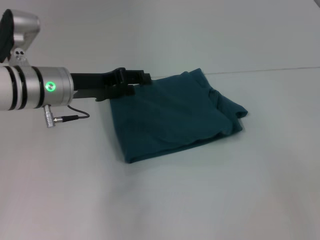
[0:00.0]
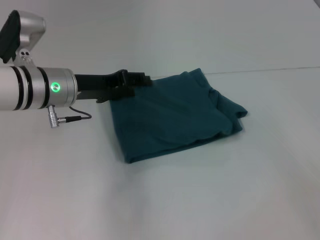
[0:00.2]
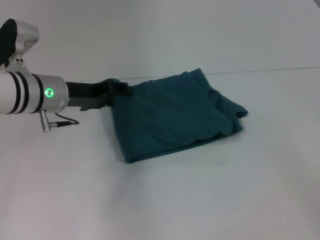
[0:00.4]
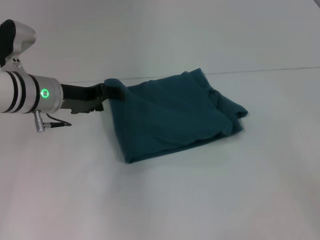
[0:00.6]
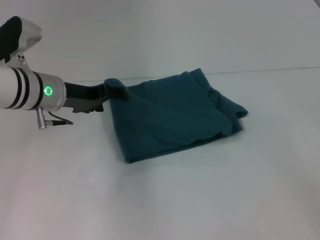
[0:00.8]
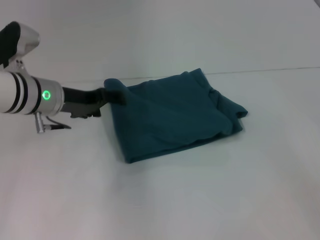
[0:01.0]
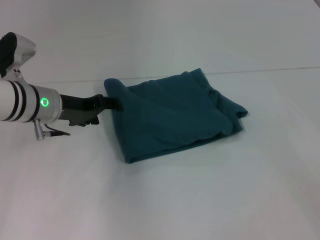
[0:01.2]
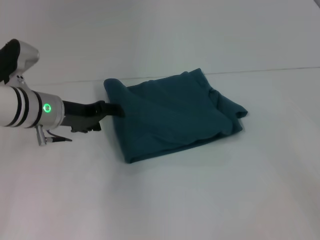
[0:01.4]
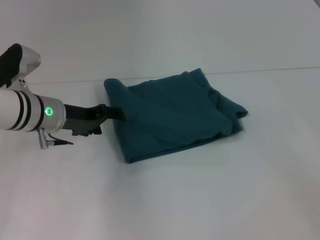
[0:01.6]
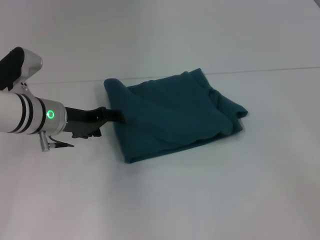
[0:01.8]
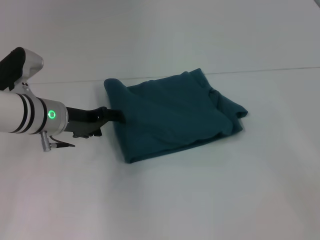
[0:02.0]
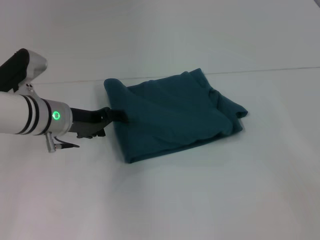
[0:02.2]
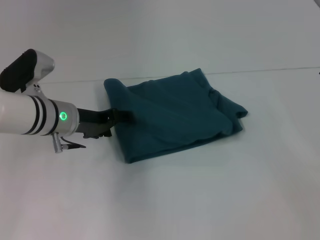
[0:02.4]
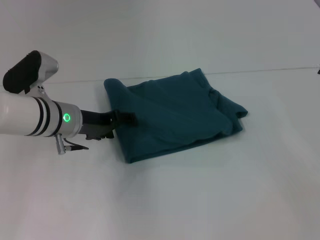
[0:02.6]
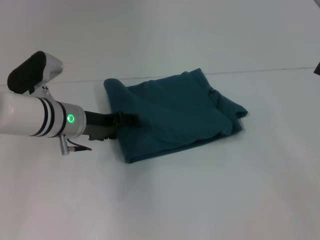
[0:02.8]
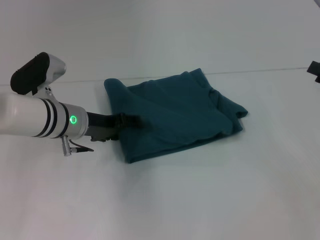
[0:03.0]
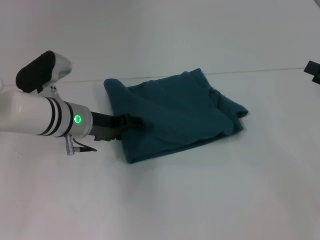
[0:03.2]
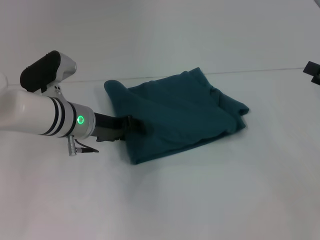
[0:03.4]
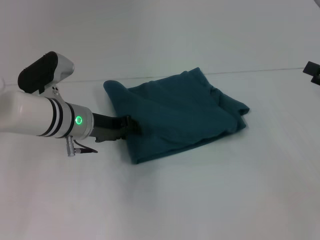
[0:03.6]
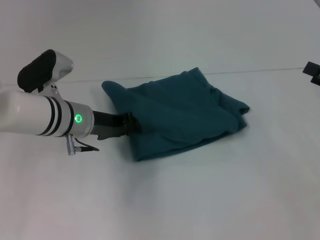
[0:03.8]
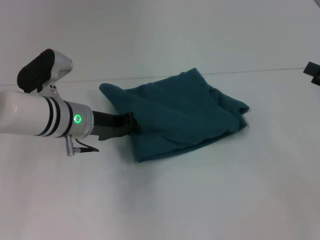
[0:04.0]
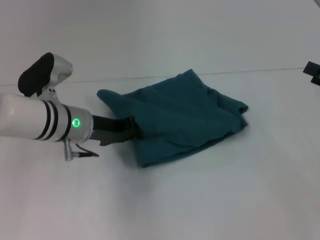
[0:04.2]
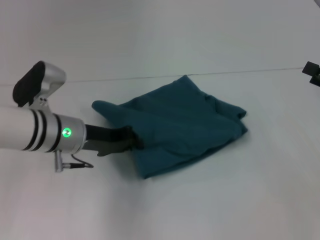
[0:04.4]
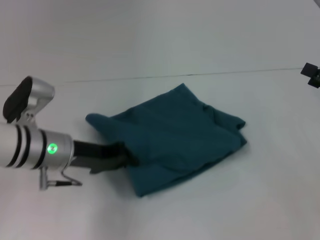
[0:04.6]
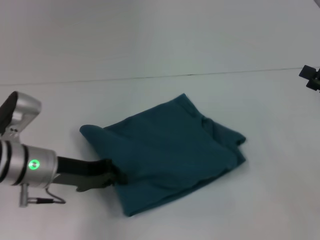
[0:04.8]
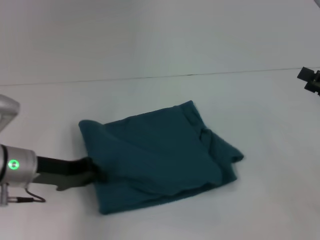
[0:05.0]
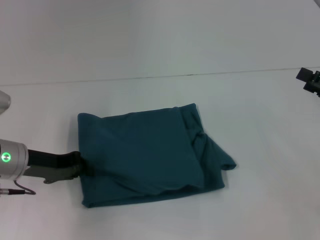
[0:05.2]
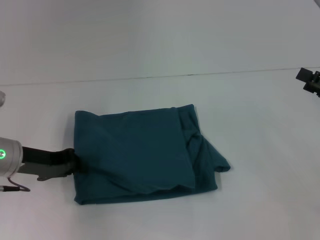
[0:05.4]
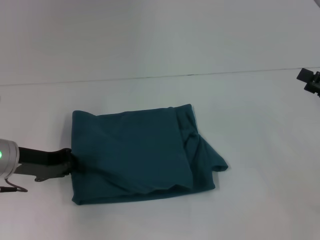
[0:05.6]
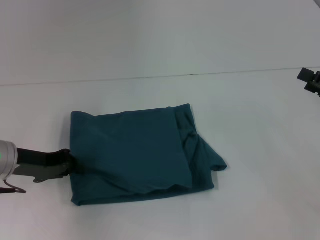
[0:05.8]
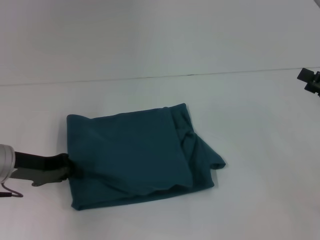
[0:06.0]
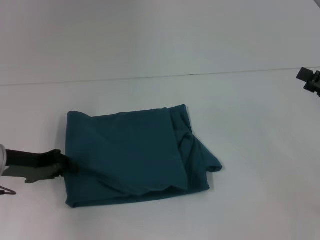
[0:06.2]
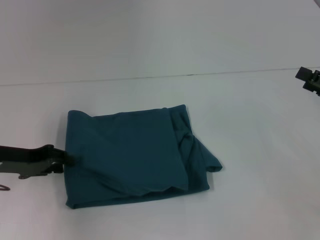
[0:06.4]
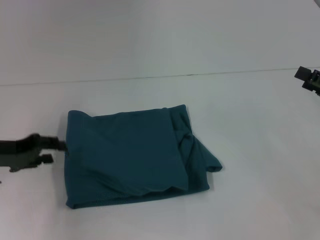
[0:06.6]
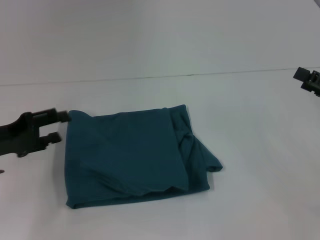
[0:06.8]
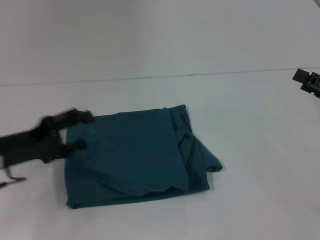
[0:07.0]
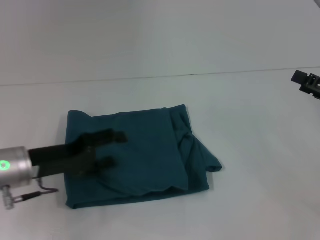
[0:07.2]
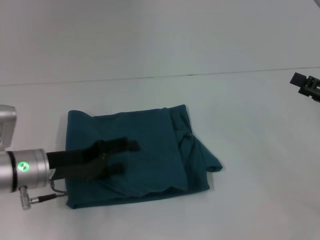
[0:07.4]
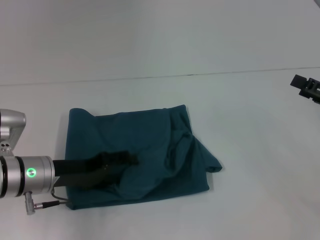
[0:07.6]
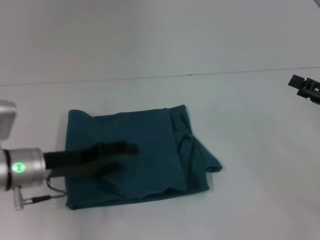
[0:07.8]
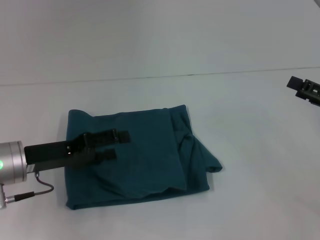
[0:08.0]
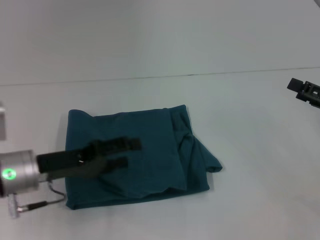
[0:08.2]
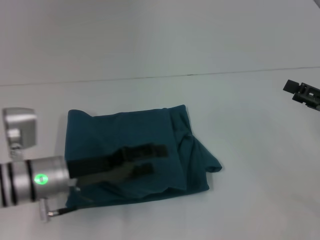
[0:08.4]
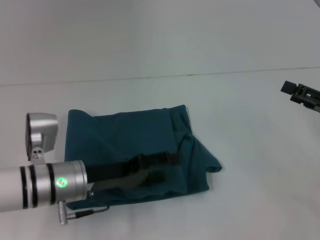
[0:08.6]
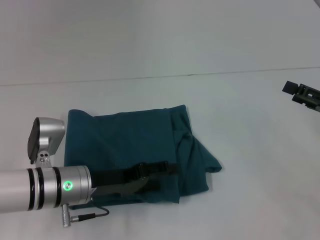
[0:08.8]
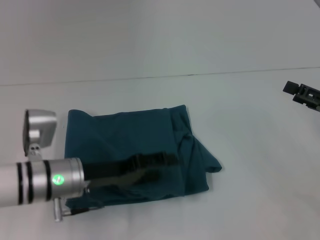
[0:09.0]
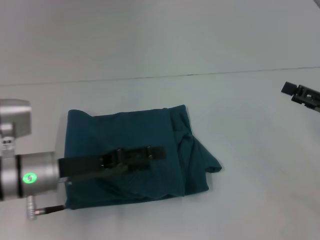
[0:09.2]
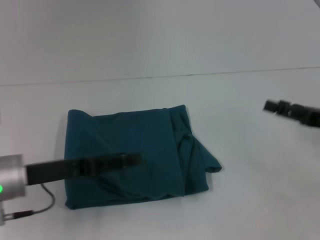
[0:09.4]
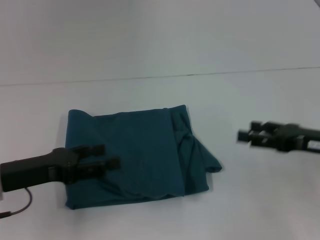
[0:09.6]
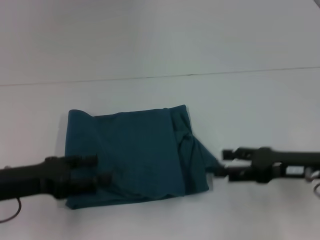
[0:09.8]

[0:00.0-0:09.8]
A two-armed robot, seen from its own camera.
1.4 to 2.8 s: There are only small adjustments of the grippers.
2.8 to 4.2 s: The left gripper closes up.
4.2 to 5.6 s: The left gripper shifts about 10 cm to the left.
5.6 to 7.0 s: The left gripper opens.
7.0 to 8.4 s: The left gripper shifts about 10 cm to the right.
8.4 to 9.8 s: Both grippers move to the left, some 10 cm.

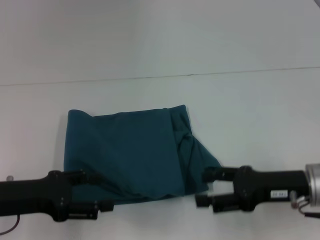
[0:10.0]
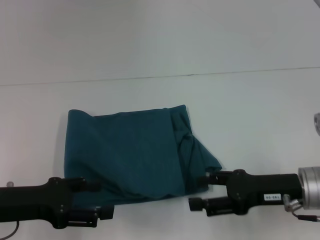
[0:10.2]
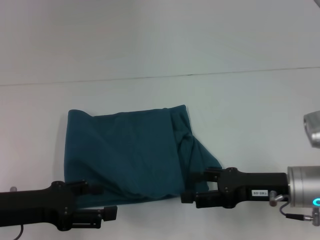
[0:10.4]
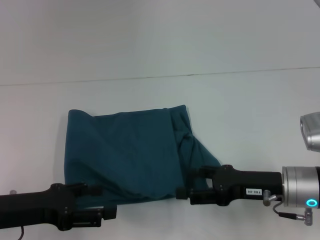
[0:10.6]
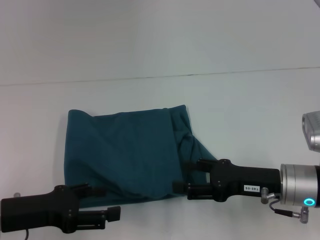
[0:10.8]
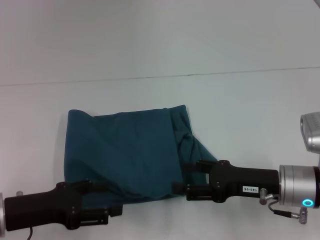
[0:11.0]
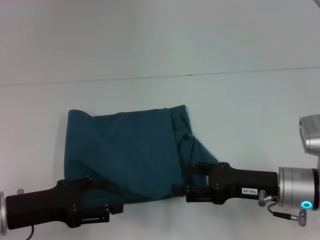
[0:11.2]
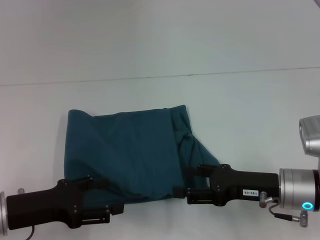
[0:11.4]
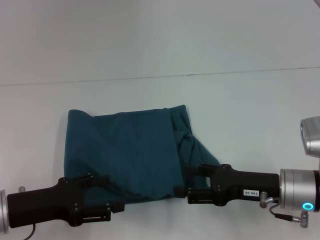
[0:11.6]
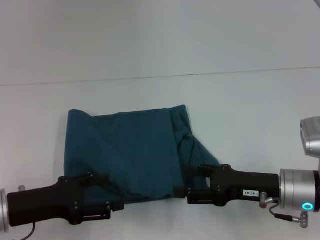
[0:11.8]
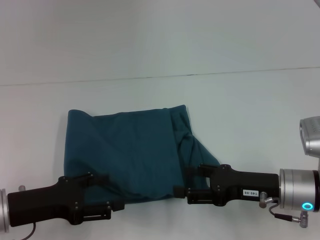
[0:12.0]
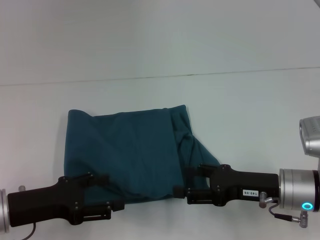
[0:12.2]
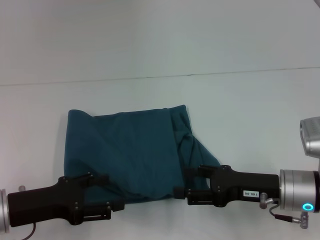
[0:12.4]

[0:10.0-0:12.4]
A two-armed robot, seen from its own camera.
10.0 to 11.2 s: There are only small adjustments of the grippers.
11.2 to 12.4 s: Both grippers stay about where they are.

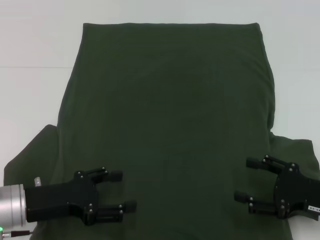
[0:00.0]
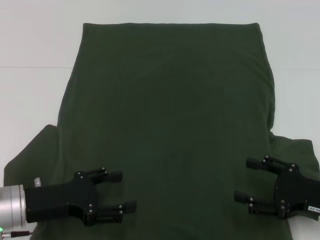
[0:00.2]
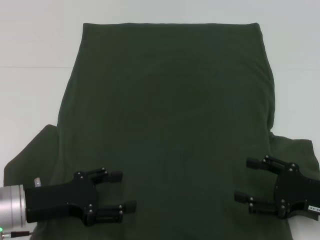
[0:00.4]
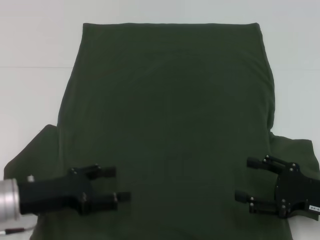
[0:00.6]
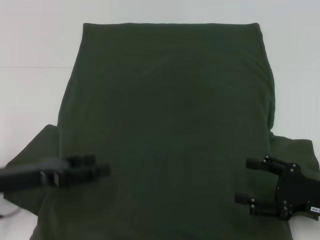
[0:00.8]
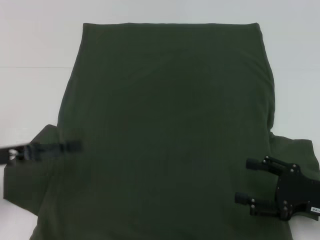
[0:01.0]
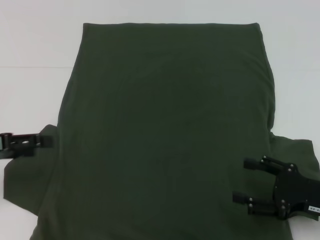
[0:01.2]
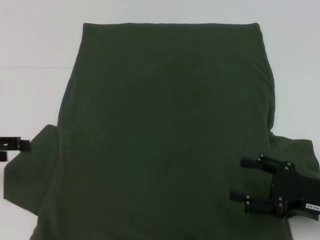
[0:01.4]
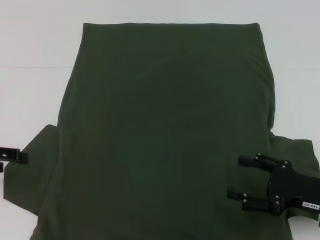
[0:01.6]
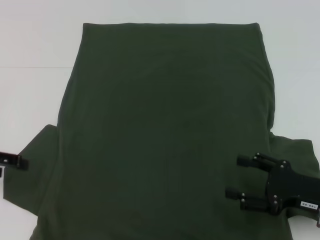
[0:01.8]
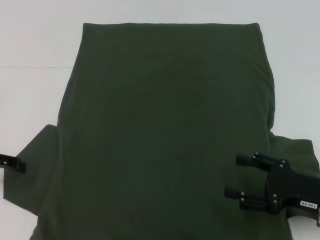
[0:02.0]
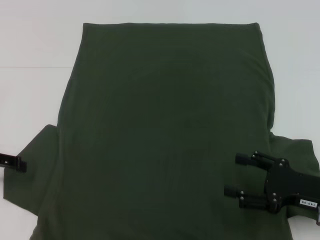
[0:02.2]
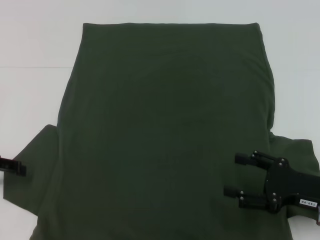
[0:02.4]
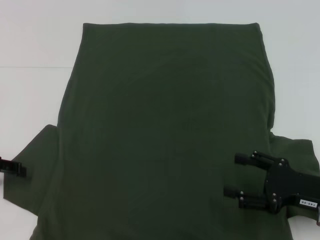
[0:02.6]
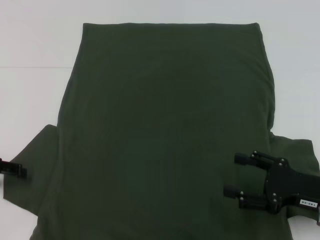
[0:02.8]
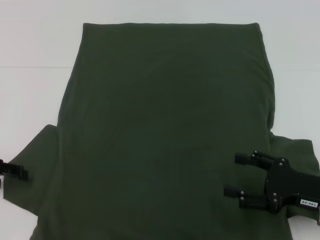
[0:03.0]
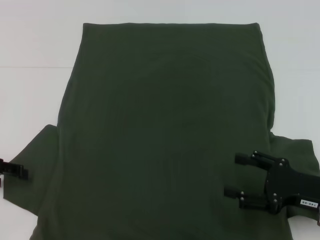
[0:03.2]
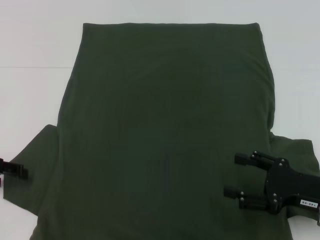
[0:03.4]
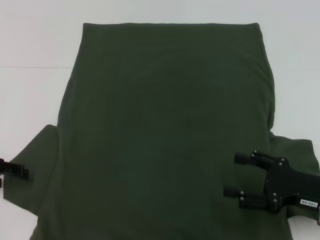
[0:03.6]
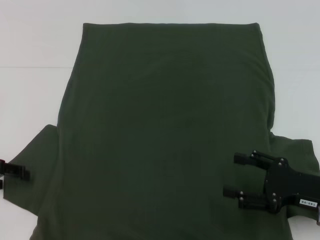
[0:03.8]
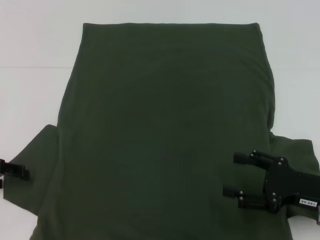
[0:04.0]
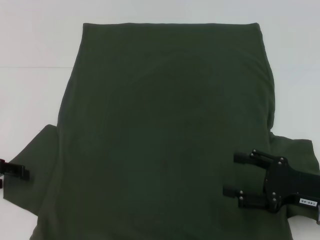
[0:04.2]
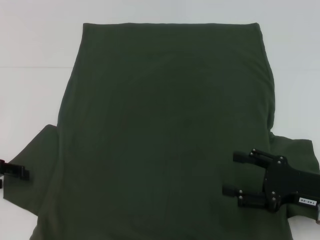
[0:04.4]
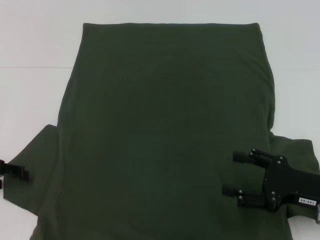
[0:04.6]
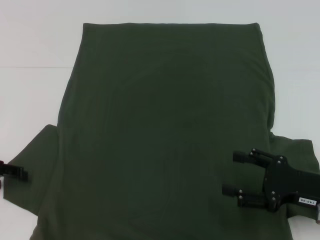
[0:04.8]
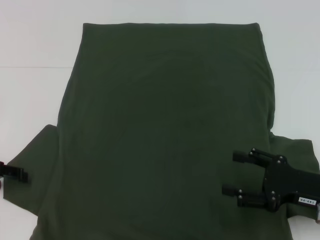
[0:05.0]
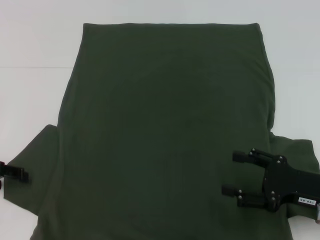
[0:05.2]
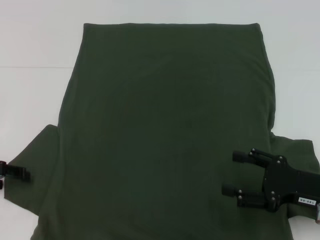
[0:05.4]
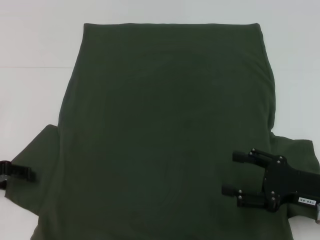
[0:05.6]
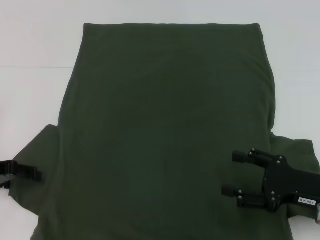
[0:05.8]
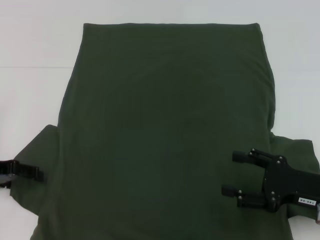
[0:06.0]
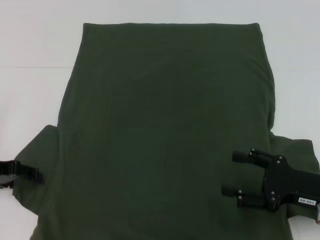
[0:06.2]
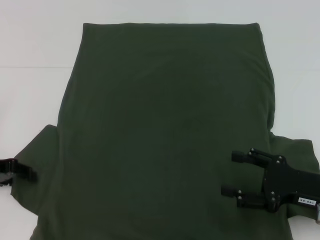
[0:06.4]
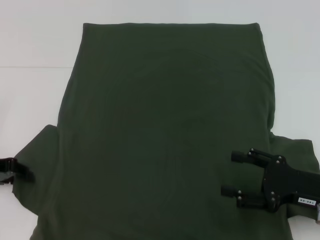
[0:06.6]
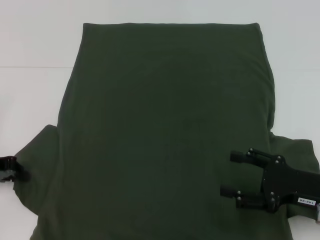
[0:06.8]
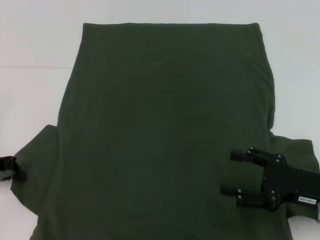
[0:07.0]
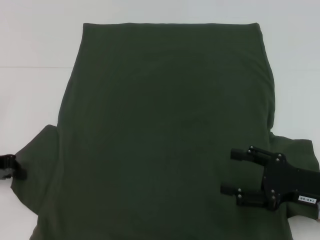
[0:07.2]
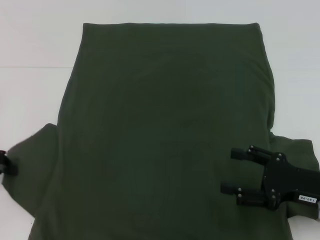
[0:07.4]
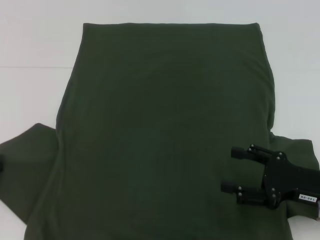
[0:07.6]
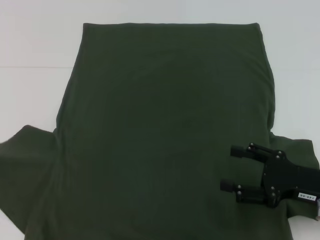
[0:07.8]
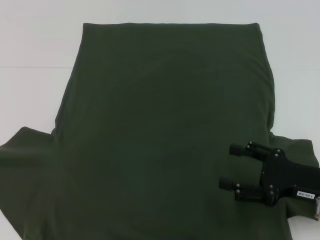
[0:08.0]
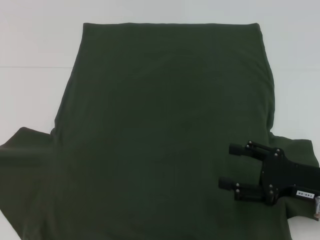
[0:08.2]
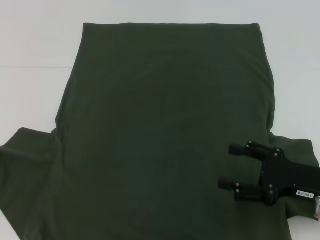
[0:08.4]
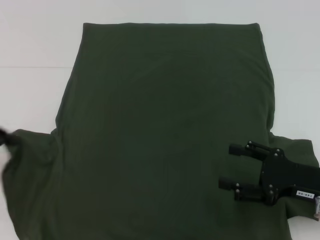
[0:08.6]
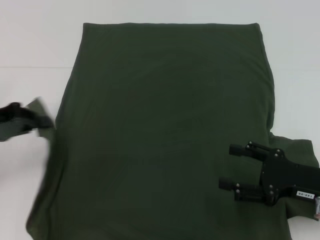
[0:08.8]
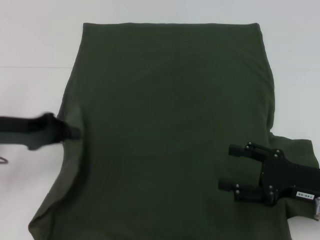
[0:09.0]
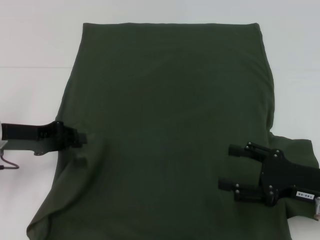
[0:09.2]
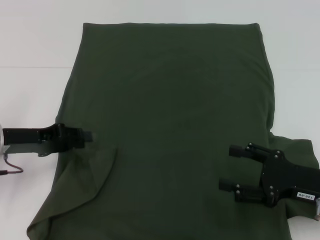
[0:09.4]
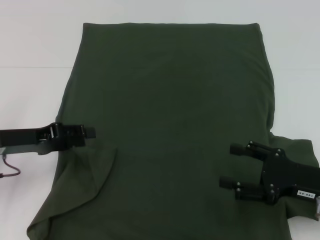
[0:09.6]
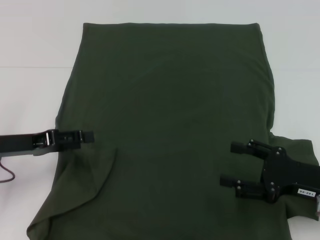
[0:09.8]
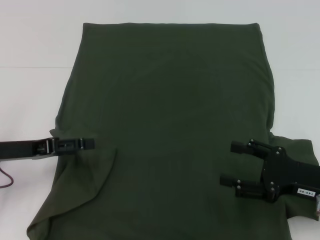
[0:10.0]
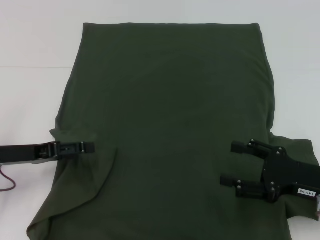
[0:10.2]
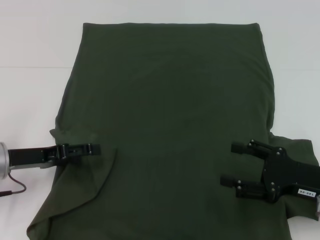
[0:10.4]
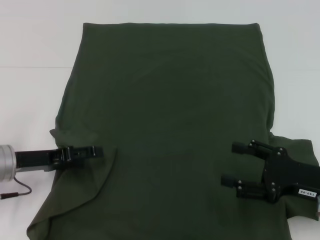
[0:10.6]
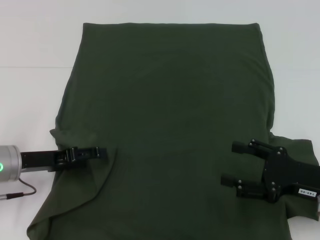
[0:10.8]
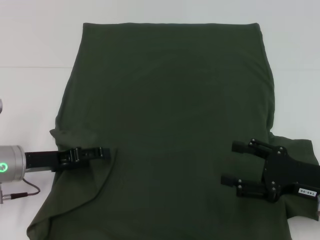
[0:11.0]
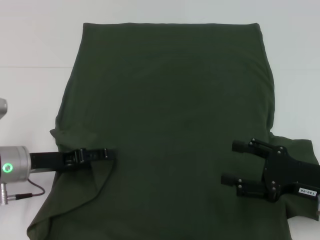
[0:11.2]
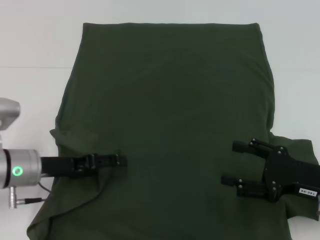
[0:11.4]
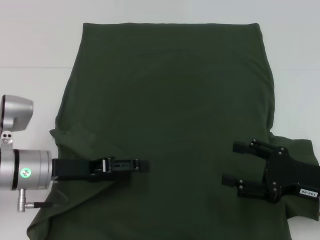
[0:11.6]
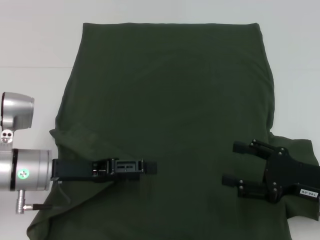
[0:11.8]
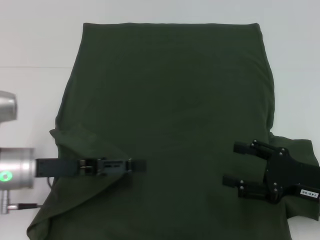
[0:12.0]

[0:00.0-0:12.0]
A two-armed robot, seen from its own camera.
Step, 0.0 to 11.8 s: Fold the bottom left sleeve with your left hand.
0.0 to 1.6 s: The left gripper moves to the left and upward, some 15 cm.
1.6 to 3.0 s: The grippers stay close to where they were, moving slightly.
3.0 to 4.4 s: The two grippers keep their place.
4.4 to 6.0 s: The grippers stay close to where they were, moving slightly.
6.0 to 7.6 s: The left gripper closes up.
7.6 to 9.0 s: The left gripper moves to the right, roughly 5 cm.
9.0 to 10.4 s: The left gripper is displaced downward by about 5 cm, and opens its fingers.
10.4 to 12.0 s: The left gripper is displaced to the right by some 5 cm.
